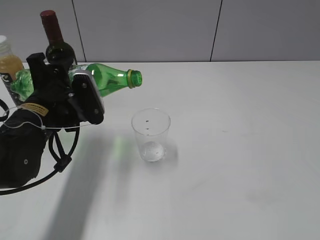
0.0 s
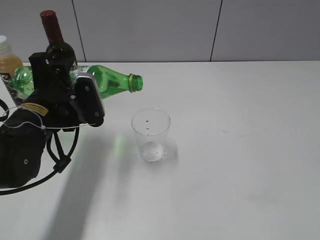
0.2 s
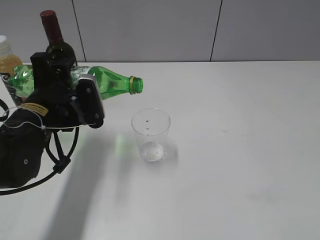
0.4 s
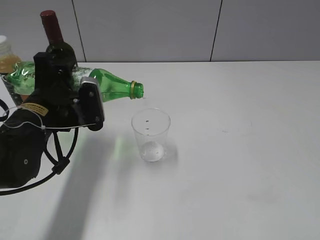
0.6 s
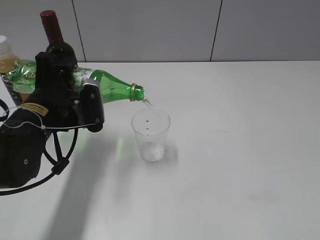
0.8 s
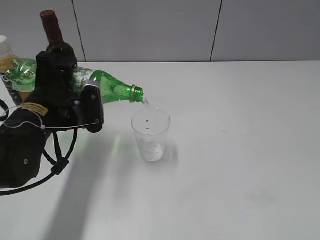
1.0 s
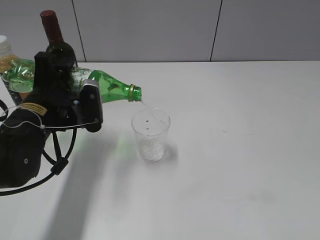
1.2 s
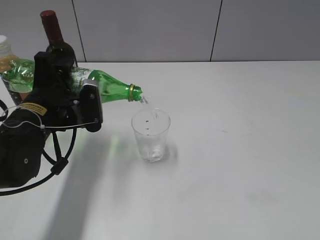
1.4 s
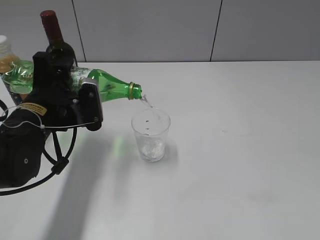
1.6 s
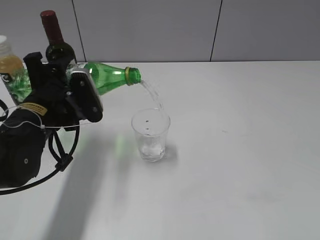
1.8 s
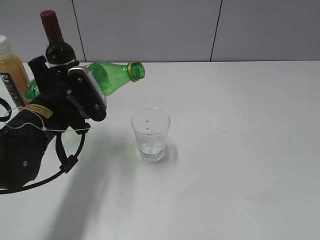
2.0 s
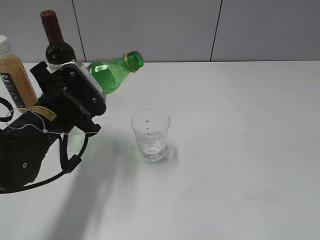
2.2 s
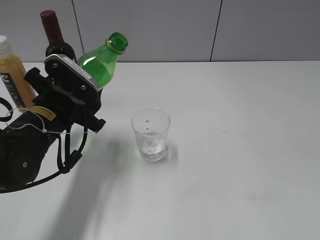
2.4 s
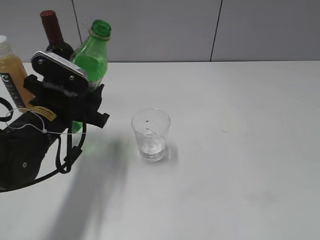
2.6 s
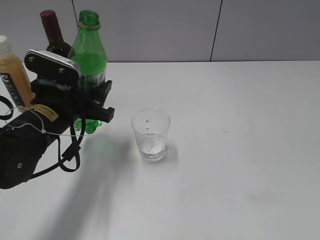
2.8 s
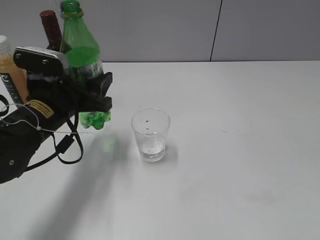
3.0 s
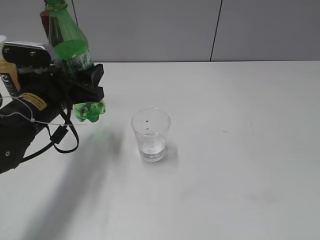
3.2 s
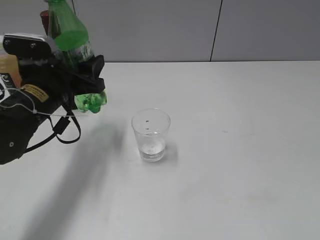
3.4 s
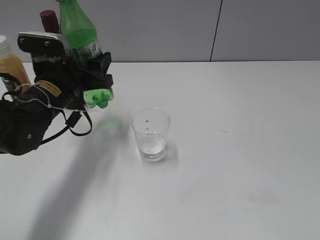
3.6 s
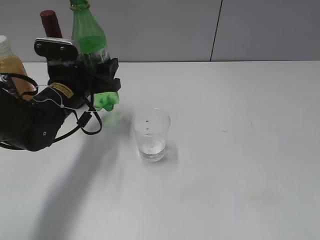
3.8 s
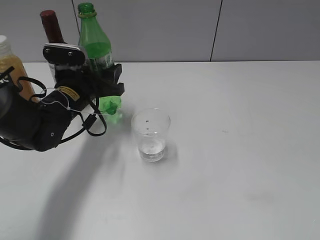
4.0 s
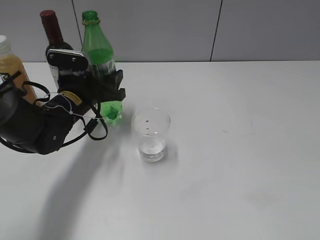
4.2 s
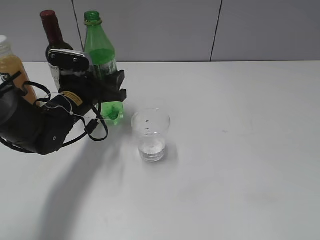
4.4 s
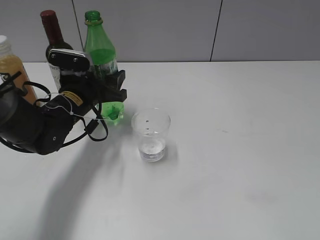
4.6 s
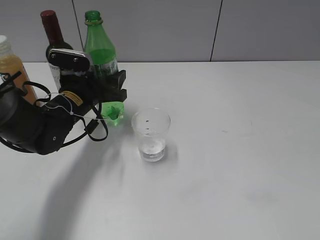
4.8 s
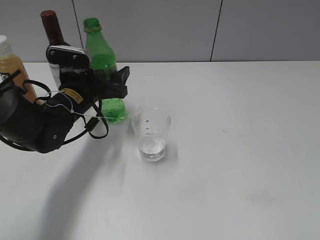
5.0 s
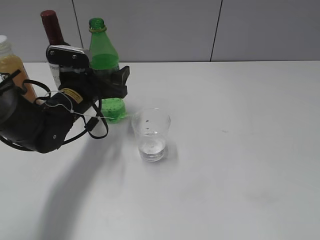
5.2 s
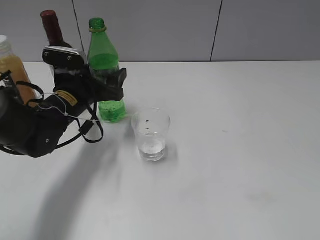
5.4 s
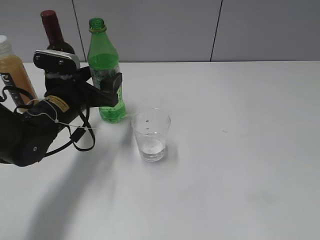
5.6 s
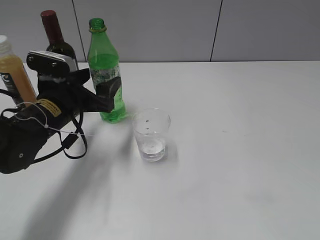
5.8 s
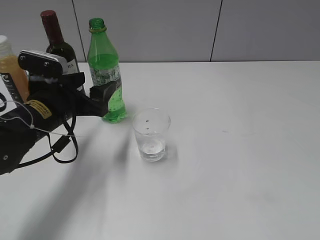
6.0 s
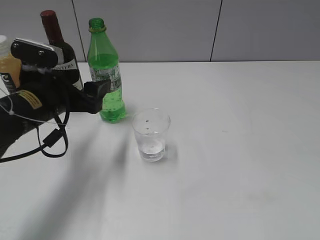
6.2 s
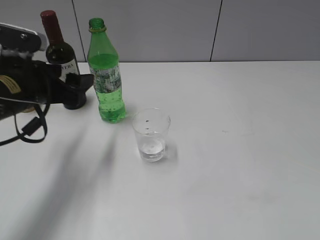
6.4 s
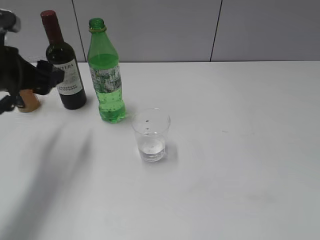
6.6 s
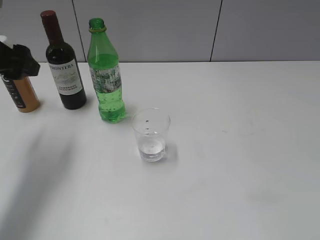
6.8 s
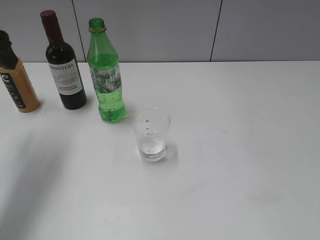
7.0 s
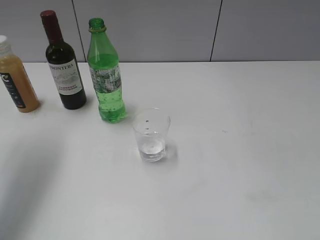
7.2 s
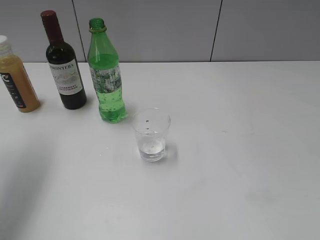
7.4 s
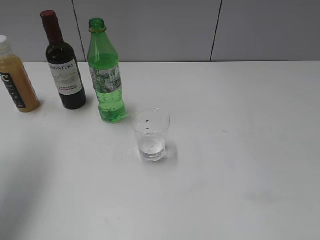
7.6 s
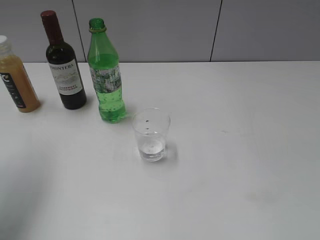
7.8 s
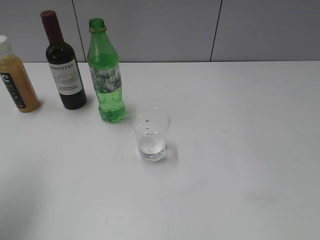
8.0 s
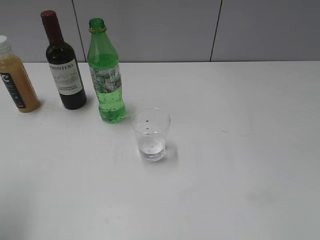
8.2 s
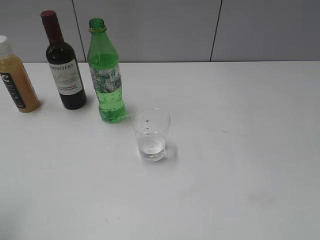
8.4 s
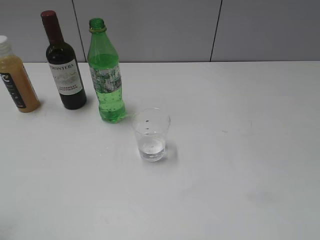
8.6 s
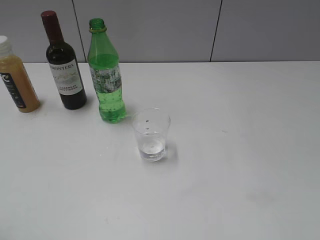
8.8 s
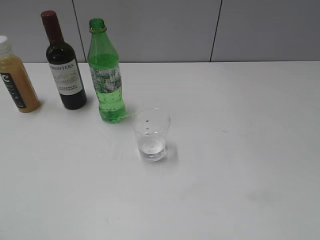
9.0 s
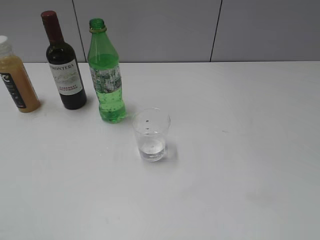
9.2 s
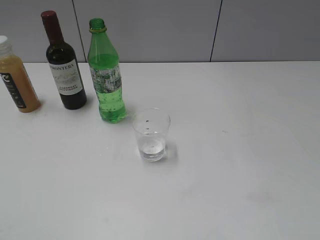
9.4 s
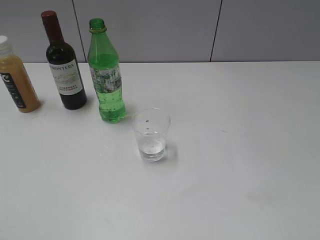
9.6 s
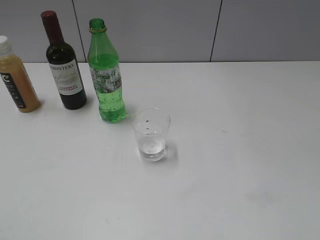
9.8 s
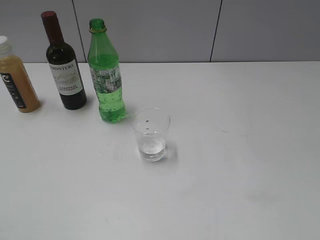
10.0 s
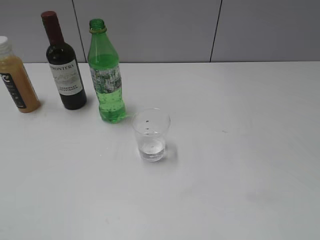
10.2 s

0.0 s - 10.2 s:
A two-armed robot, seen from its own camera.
Step, 0.0 s - 2.0 s: Pour the sprite from bottle to cup with left gripper.
Step, 2.2 s - 6.0 s: Place the sprite bottle on the table with left gripper.
0.0 s - 1.4 s: The grippers move only a little.
3.0 s - 4.4 s: The left gripper travels forward by about 5 cm.
4.4 s - 5.8 s: The left gripper ends up approximately 5 cm from where it was, and opens its fingers.
5.8 s - 7.2 s: The left gripper heads upward and to the left, covering approximately 20 cm.
7.2 s - 8.8 s: The left gripper shifts roughly 20 cm backward.

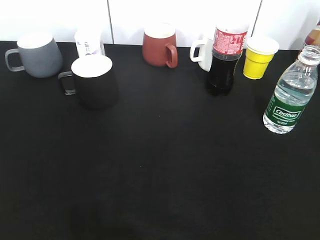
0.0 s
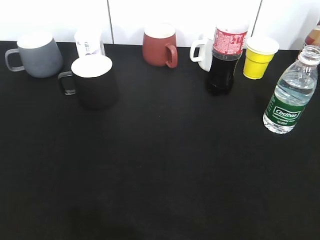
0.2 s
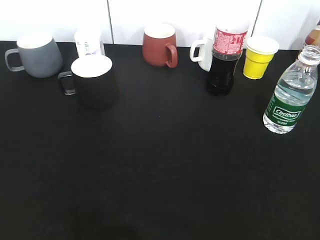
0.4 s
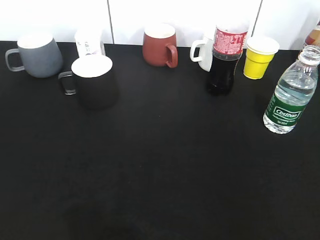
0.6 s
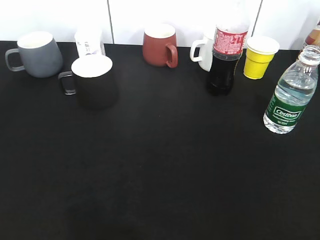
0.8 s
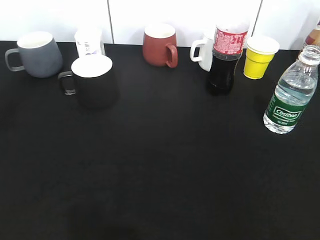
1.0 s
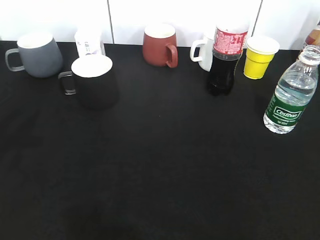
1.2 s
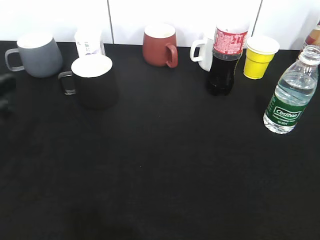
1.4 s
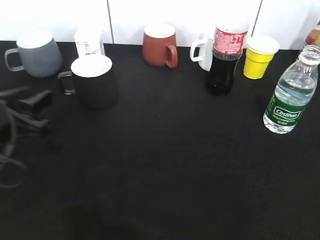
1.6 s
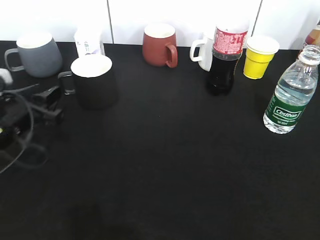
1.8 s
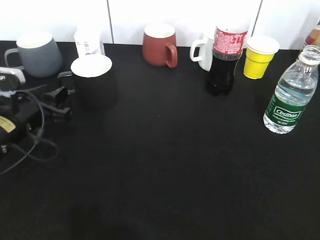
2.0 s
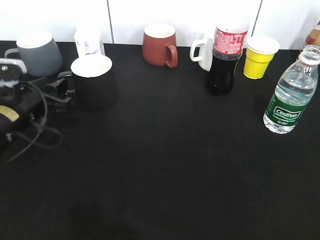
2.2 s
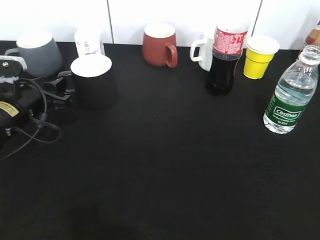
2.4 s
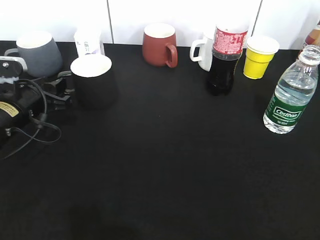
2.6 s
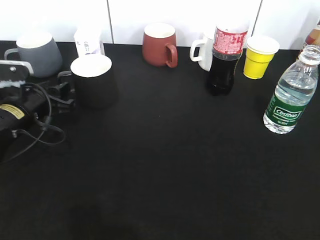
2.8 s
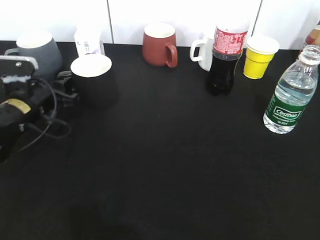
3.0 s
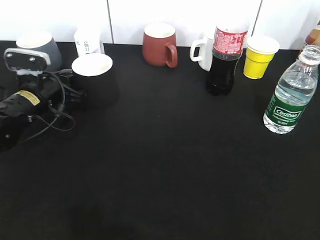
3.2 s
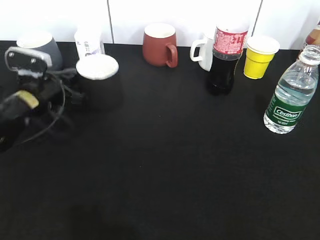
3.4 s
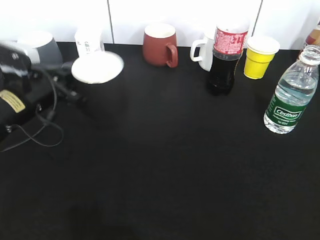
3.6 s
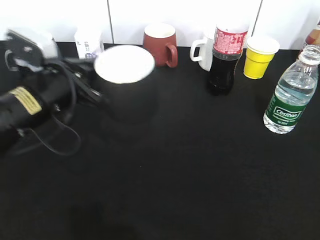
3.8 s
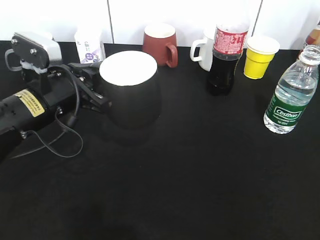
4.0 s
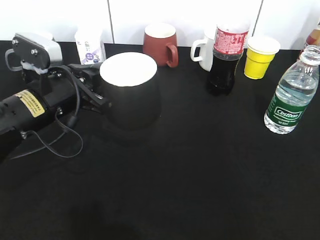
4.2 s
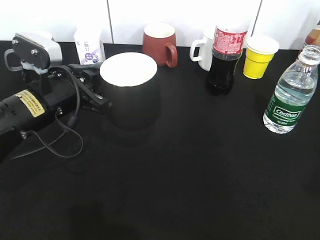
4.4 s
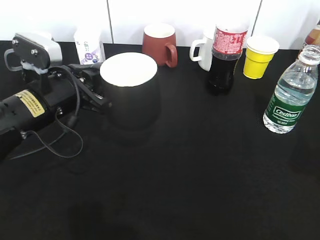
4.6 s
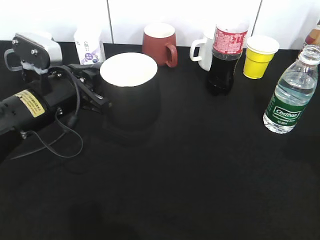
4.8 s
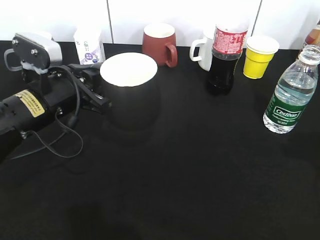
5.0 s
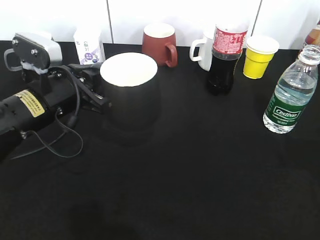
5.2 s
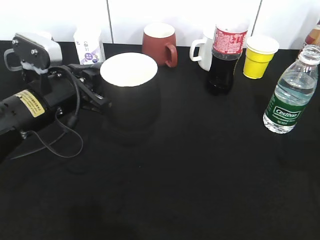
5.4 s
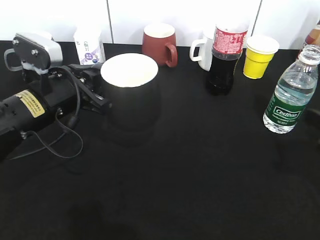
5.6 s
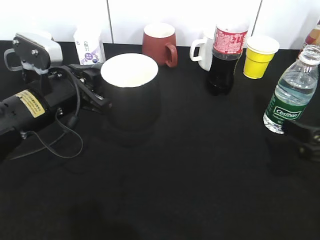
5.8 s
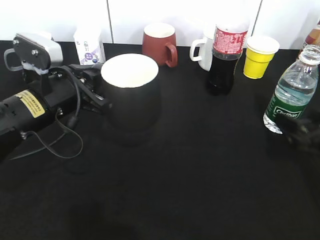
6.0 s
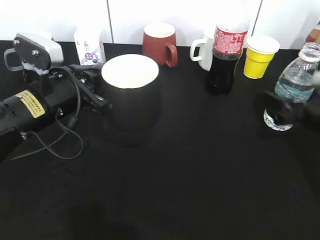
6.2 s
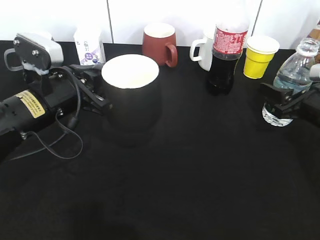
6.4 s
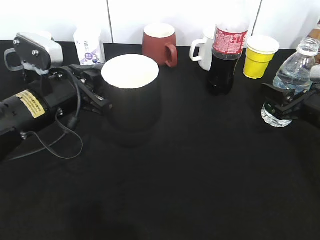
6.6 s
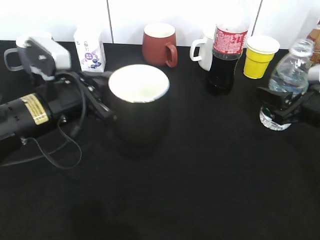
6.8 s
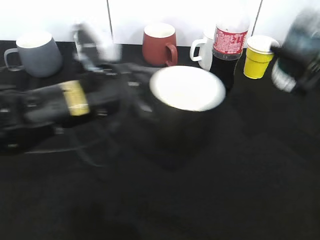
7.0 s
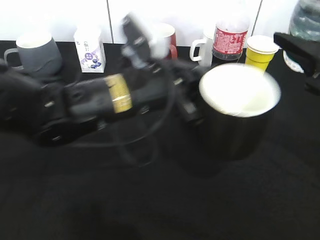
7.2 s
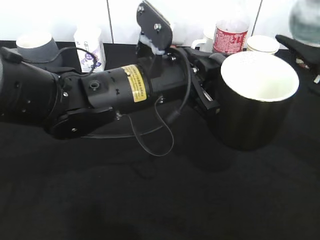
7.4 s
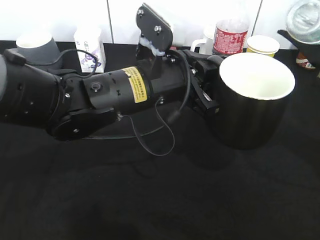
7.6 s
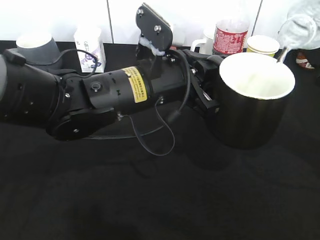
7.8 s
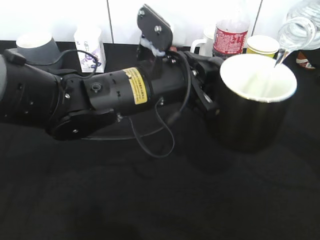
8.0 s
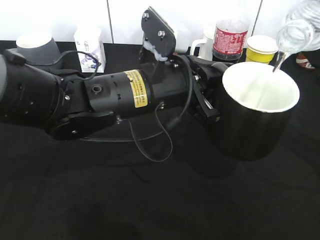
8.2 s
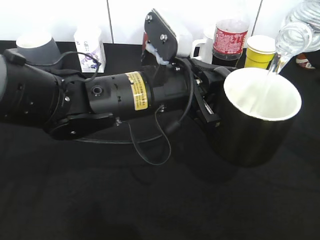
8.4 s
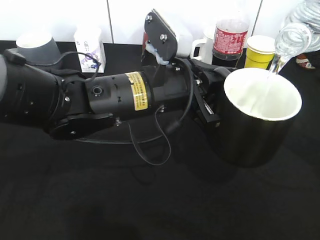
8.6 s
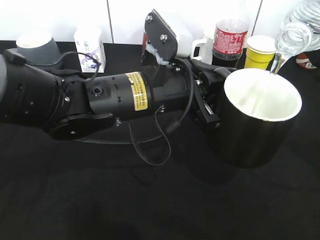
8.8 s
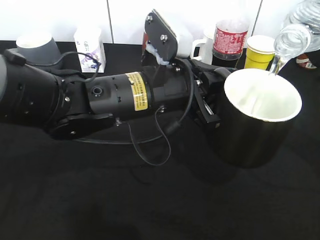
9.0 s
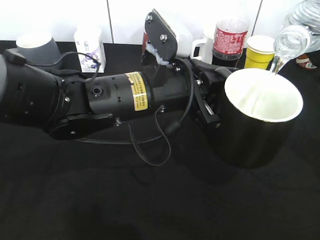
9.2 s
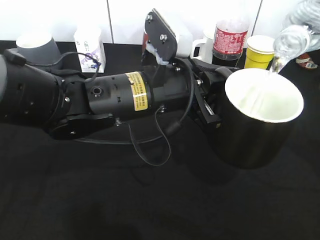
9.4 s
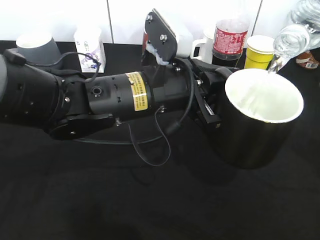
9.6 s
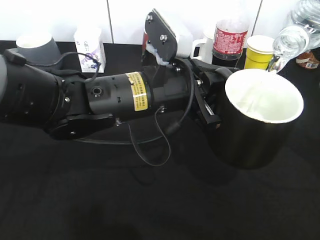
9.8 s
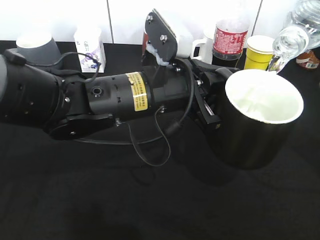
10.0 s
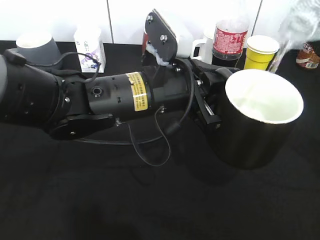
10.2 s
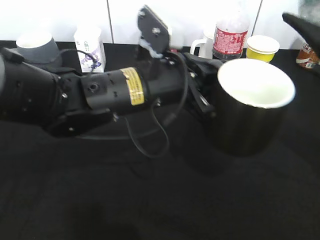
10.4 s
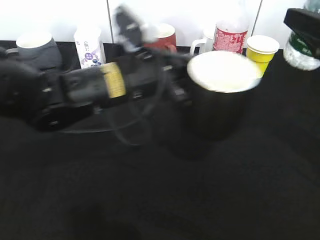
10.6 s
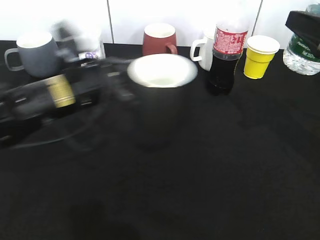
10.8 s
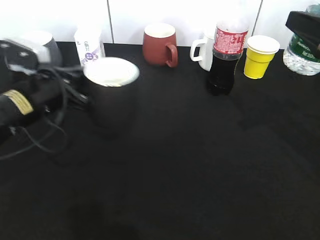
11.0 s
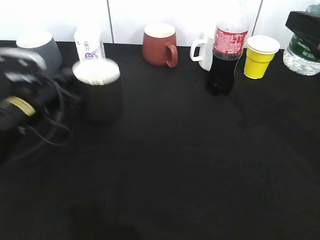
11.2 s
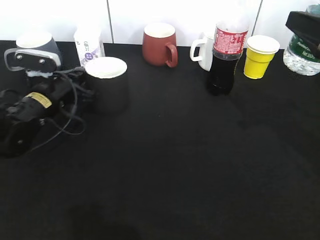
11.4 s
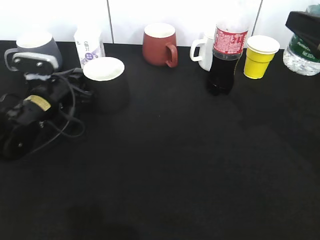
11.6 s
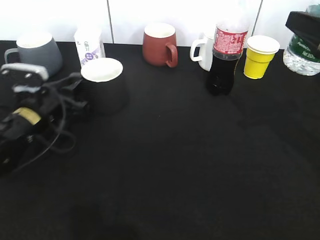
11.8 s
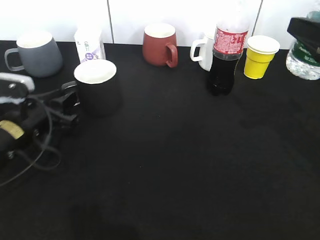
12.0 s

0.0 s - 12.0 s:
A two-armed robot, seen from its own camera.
Step, 0.6 s - 3.2 s: Grasp the black cup with left gripper.
Step, 3.4 s - 4.0 s: Lift the black cup with left gripper.
Step, 4.2 s - 6.4 s: Grasp the bottle with water with right gripper.
Step, 6.6 s - 10.4 s: Pour the water from bottle to cup with right gripper.
0.0 s - 1.6 s: The left gripper shifts some 25 cm forward and downward.
1.6 s - 3.0 s: The left gripper travels forward by some 10 cm.
3.0 s - 4.4 s: The left gripper moves to the right, upward and backward, about 10 cm, and closes its fingers. Meanwhile the right gripper moves forward, about 5 cm.
4.4 s - 6.0 s: The right gripper heads downward and forward, covering some 25 cm, and opens its fingers.
6.0 s - 7.6 s: The right gripper moves upward, some 15 cm, and closes up. The left gripper moves to the right, approximately 15 cm.
7.6 s - 9.0 s: The grippers make only small movements.
10.4 s - 12.0 s: The left gripper heads to the left and downward, covering approximately 25 cm, and opens up.
